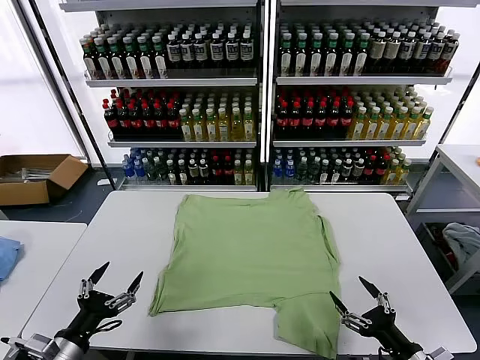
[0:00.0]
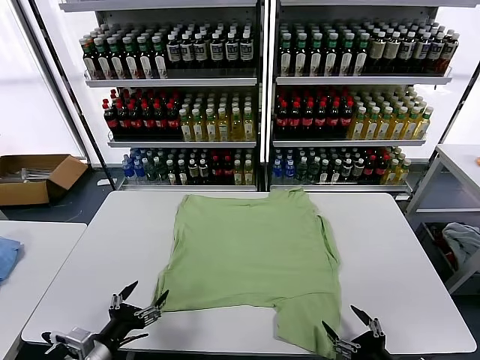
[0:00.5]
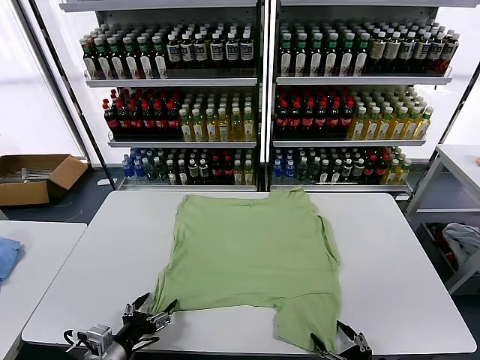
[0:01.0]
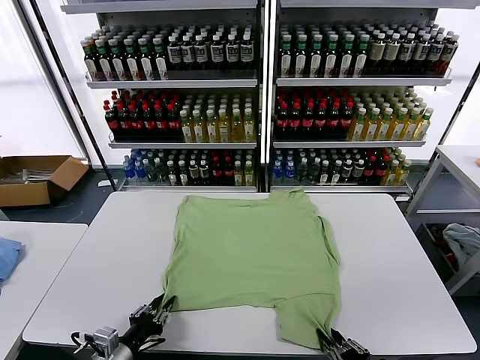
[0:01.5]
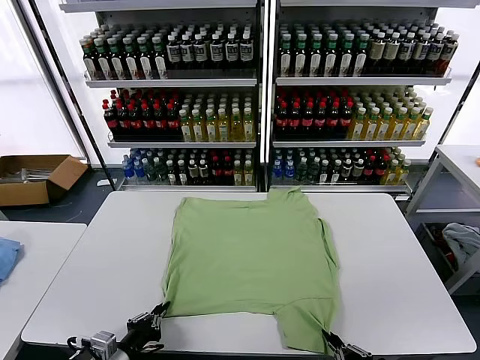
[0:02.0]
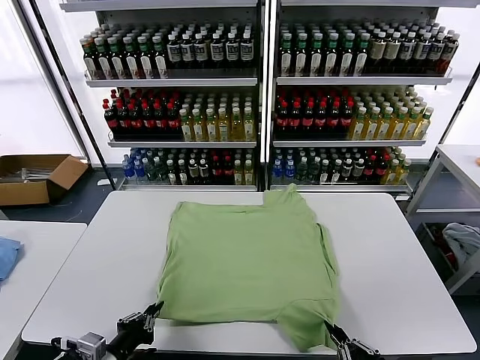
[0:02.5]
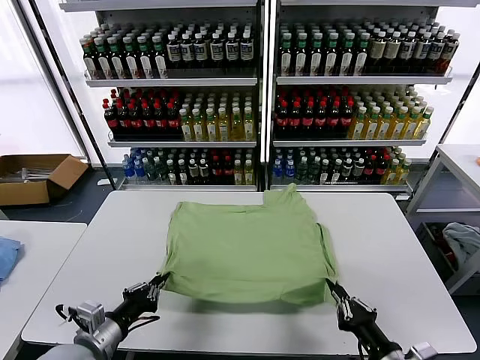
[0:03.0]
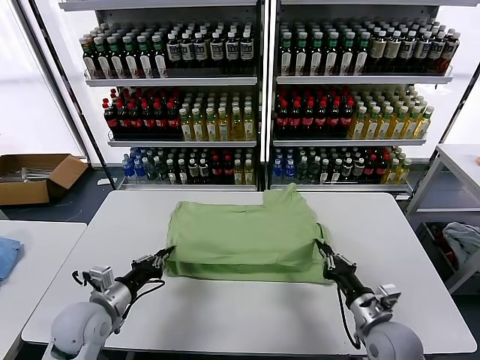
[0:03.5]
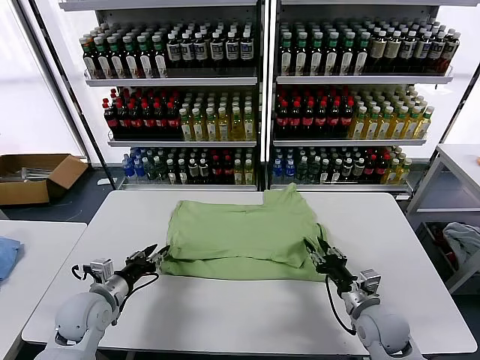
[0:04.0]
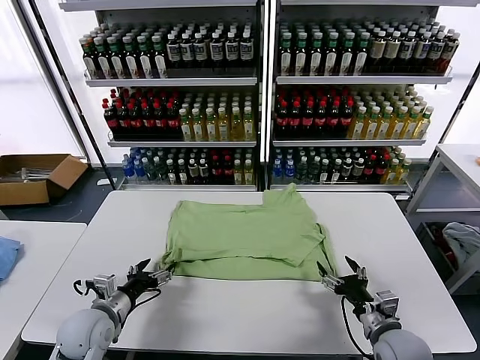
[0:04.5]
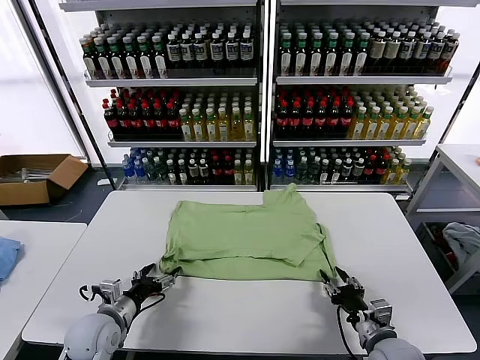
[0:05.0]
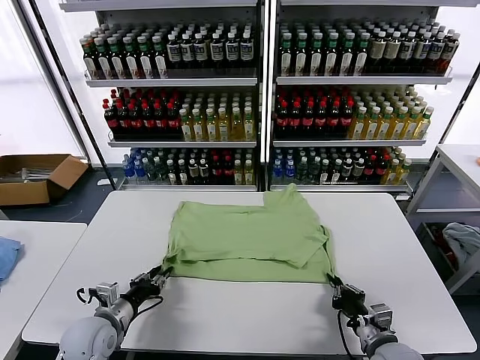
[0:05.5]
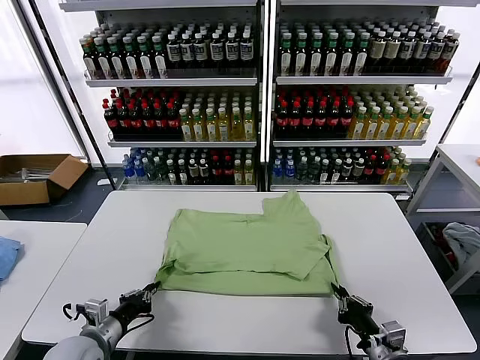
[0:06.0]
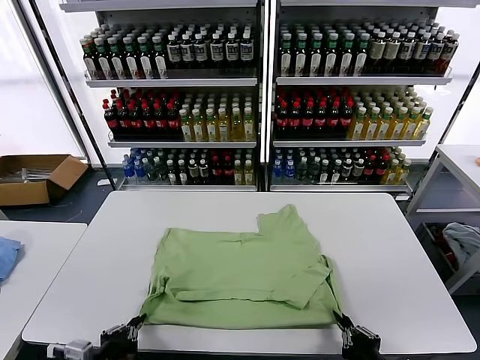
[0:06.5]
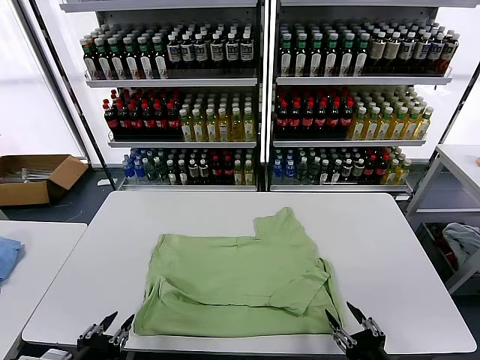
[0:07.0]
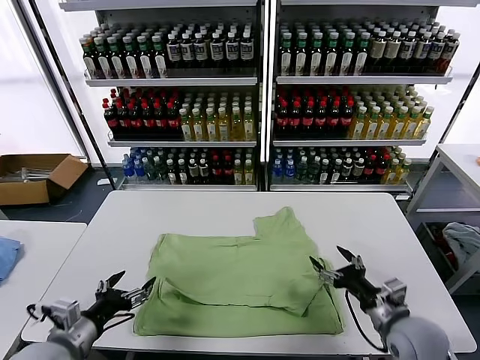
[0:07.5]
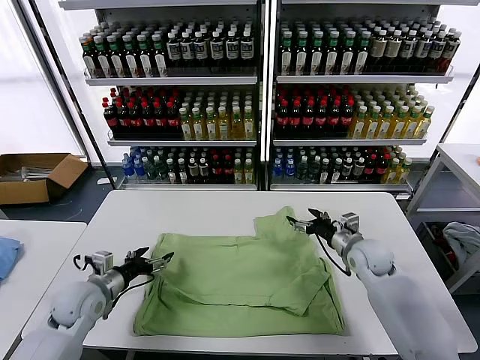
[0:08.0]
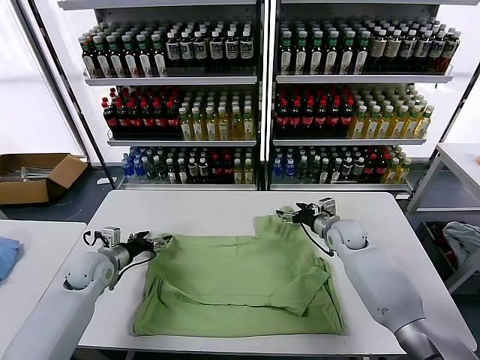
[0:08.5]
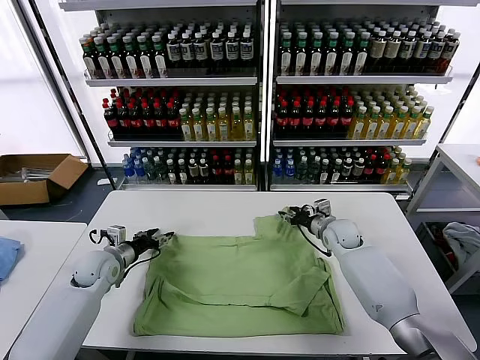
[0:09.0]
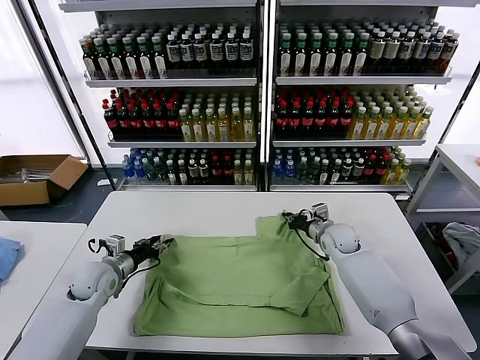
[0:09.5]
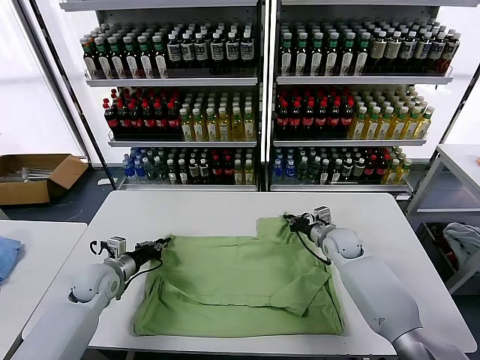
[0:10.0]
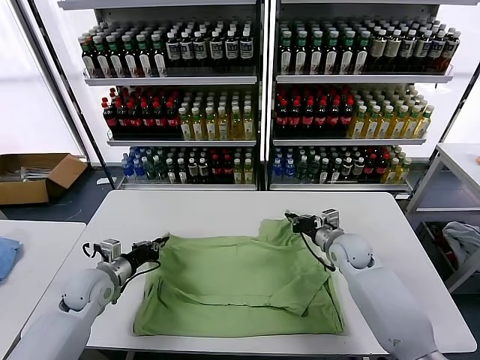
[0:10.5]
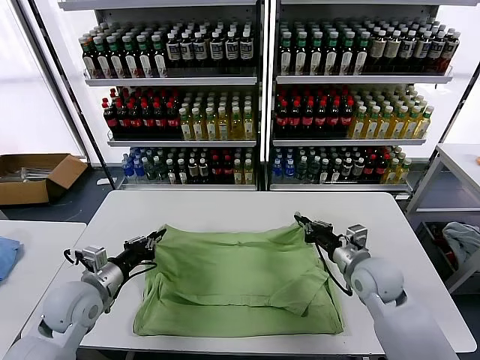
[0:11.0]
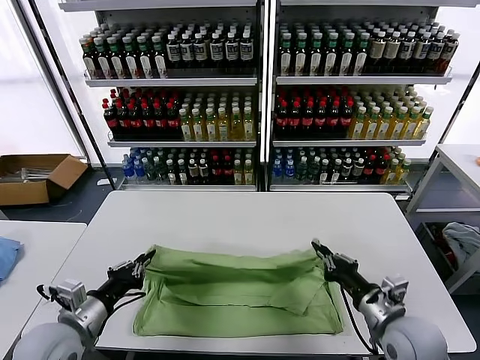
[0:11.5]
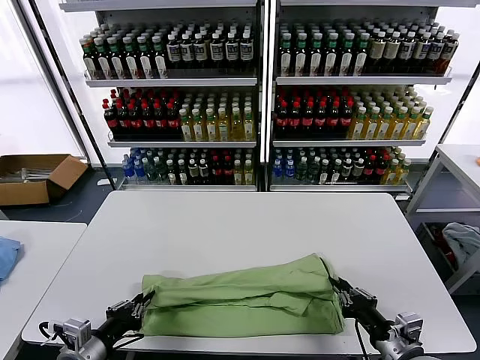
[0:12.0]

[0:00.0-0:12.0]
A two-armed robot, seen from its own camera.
Task of the whole recording: fold and organize the clothes.
Step, 0:00.0 to 0:01.5: use both grippers simultaneously to clamp the lower edge of the clothing fabric.
Step, 0:02.0 to 0:04.0: use both grippers to drag the lower edge of the fabric forward and fold it over the upper edge.
Step, 0:04.5 to 0:07.0: Drag the clothes downward with both gripper.
Step, 0:07.5 to 0:10.0: use both grippers simultaneously to clamp the upper edge of the clothing fabric.
0:02.0 to 0:04.0: Both grippers move forward, roughly 20 cm. The right gripper opens up, while the left gripper opens up.
0:04.0 to 0:06.0: Both grippers travel together backward, approximately 10 cm. The right gripper closes its fingers, while the left gripper closes its fingers.
0:06.0 to 0:08.0: The left gripper shifts about 15 cm forward, and opens. Meanwhile the right gripper moves forward, approximately 30 cm, and opens its fingers.
0:08.0 to 0:10.0: The left gripper moves approximately 5 cm, and closes its fingers, while the right gripper moves about 5 cm, and closes up.
0:10.0 to 0:12.0: The grippers both shift backward by some 25 cm.

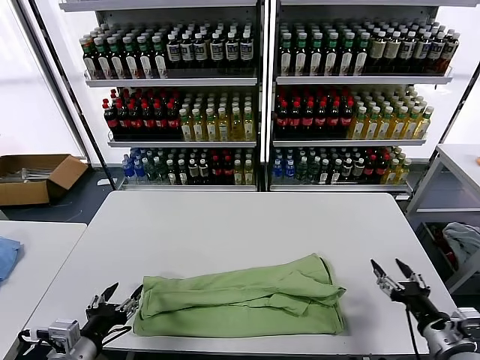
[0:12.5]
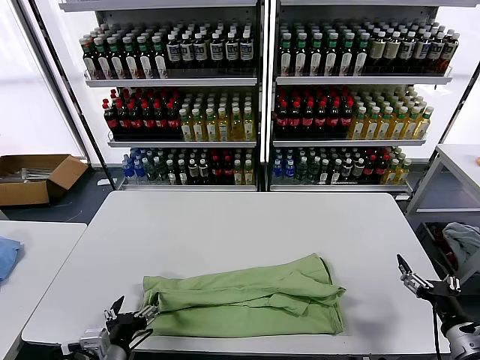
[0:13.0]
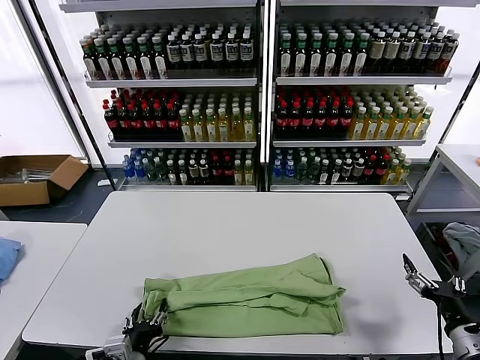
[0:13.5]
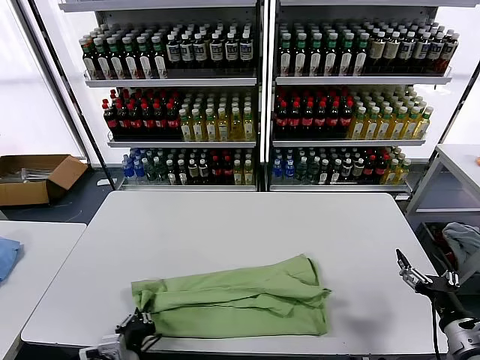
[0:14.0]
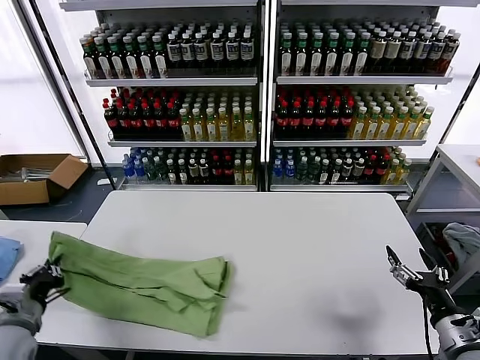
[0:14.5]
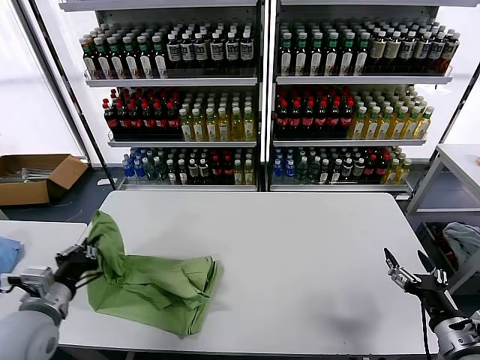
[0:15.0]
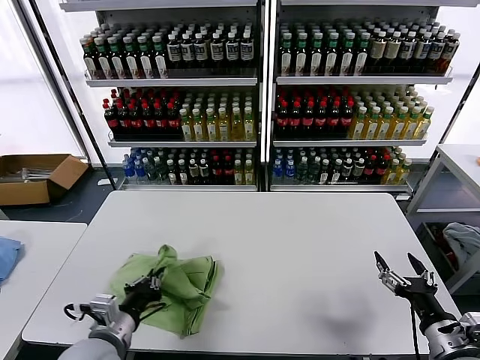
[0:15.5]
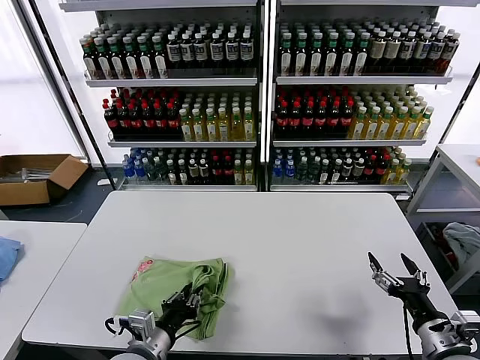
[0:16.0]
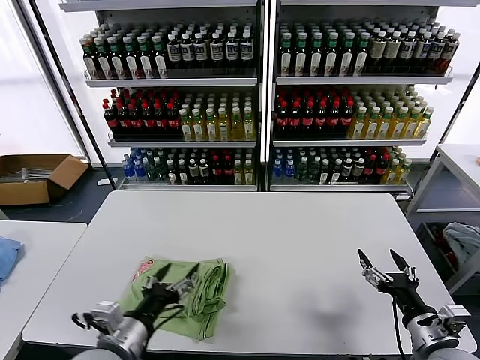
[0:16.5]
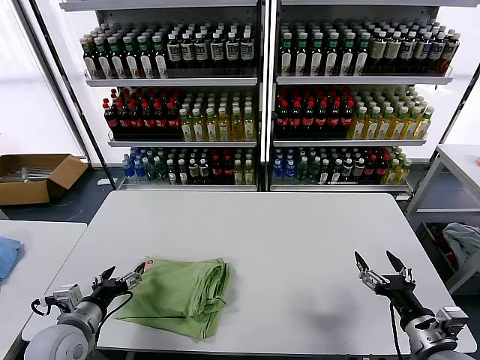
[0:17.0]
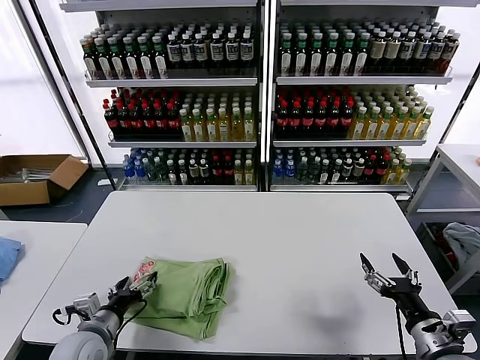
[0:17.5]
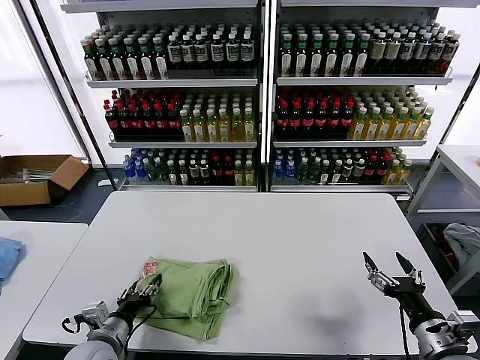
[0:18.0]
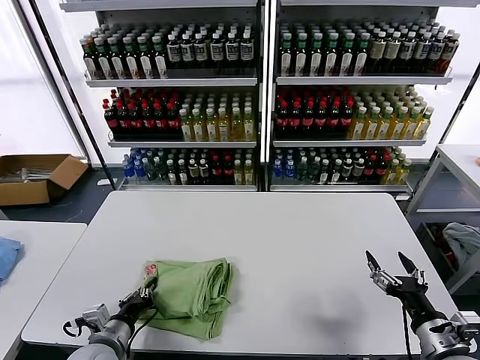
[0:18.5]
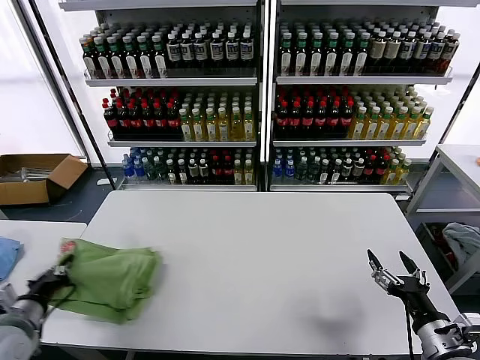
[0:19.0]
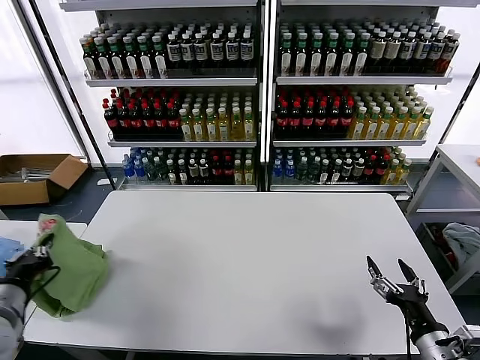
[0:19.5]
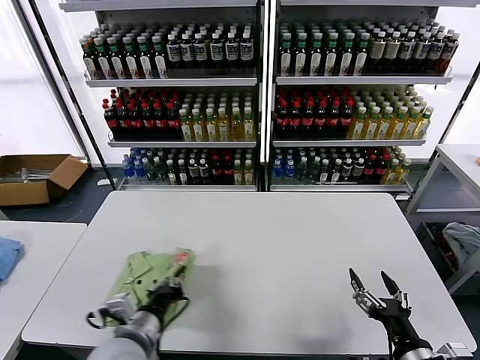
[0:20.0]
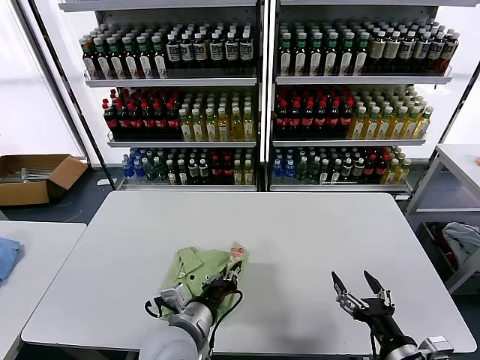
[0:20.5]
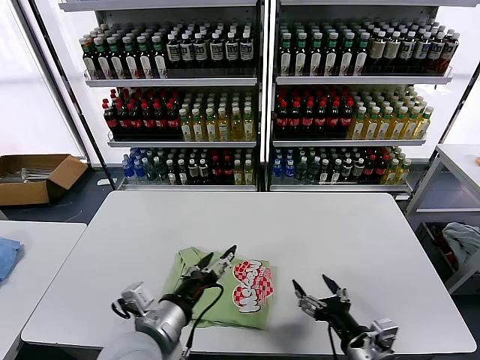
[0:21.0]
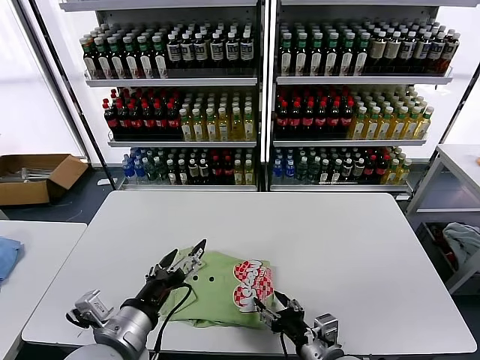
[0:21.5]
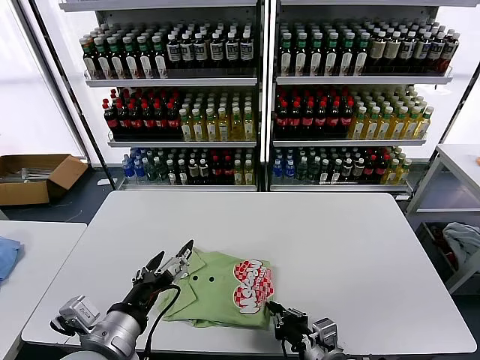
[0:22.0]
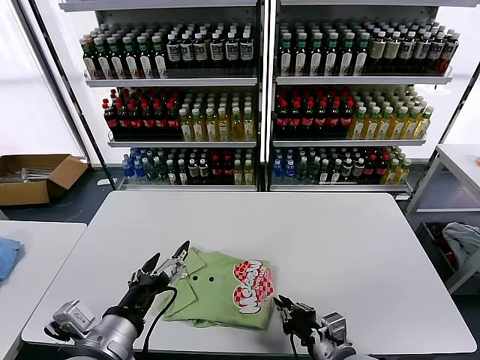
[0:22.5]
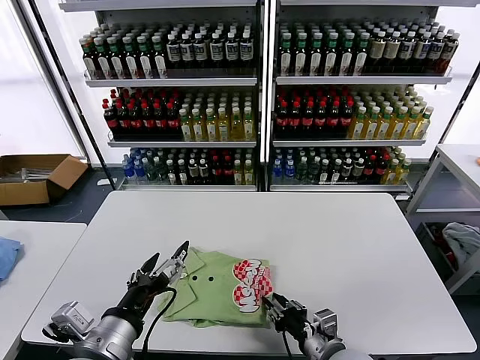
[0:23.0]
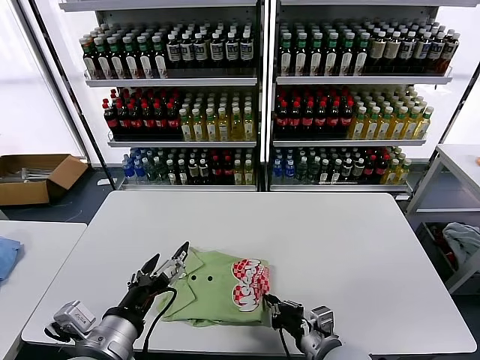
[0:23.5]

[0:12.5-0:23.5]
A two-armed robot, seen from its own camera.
Task of the whole recording: fold and organize the clothes.
Step, 0:12.5 to 0:13.5: use the left gripper to clamp the left edge of the fabric.
Step, 0:14.0 to 0:16.0: use the left gripper to drag the left edge of the fabric to the left and folds it over the right edge.
Step, 0:16.5 to 0:20.5: Flip the folded clothes over with left gripper.
0:12.5 to 0:14.5: The left gripper goes roughly 15 cm to the left and forward, and closes its fingers.
0:14.5 to 0:16.0: The left gripper goes roughly 20 cm to the right.
0:16.0 to 0:18.0: The left gripper is displaced to the left by approximately 10 cm, and opens up.
0:18.0 to 0:20.0: The left gripper moves to the right and upward, roughly 10 cm, and closes. Meanwhile the right gripper shifts by approximately 5 cm.
0:20.0 to 0:21.5: The right gripper moves to the left and forward, some 15 cm, while the left gripper moves upward, about 10 cm, moves roughly 10 cm to the right and comes back, and opens up.
0:21.5 to 0:23.5: The right gripper closes up.

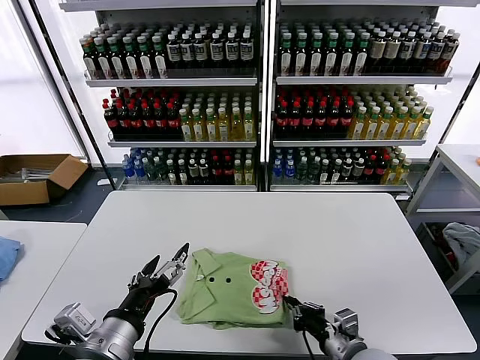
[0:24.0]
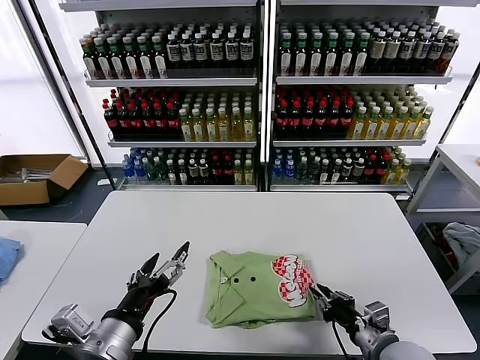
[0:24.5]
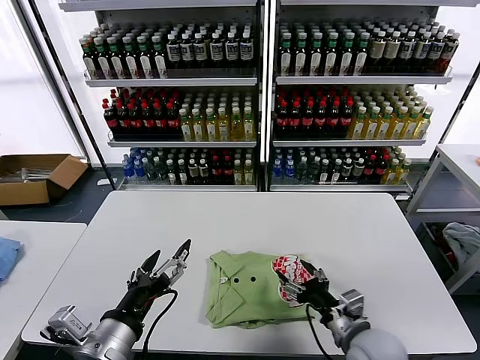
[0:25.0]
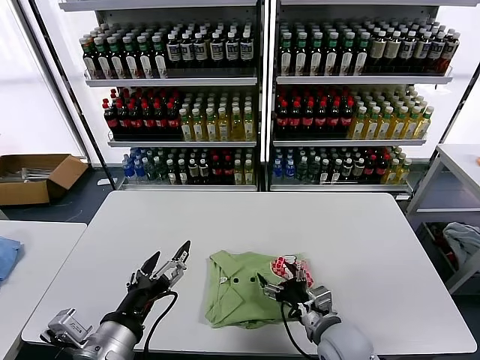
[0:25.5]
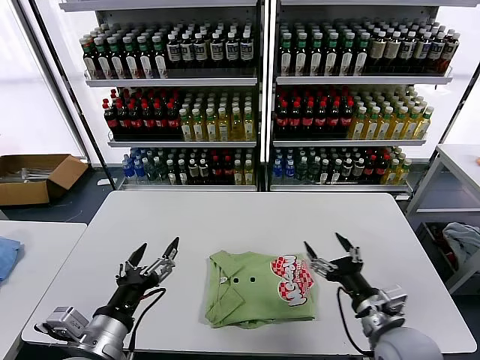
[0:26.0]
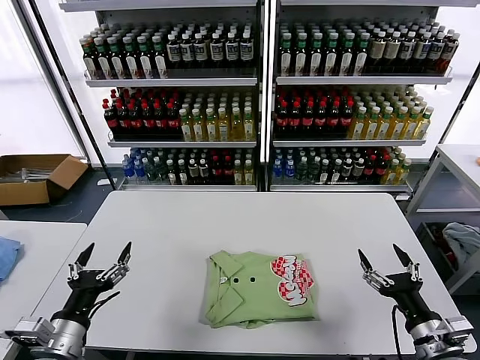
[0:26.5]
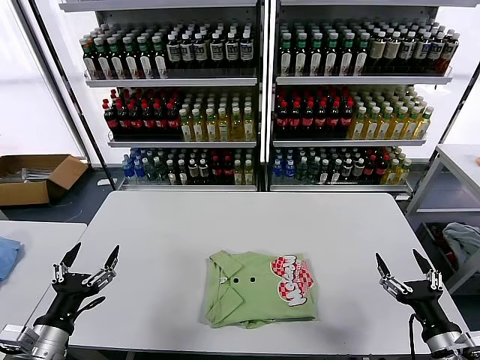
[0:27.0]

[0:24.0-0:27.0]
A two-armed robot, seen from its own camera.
Task of the whole recording: fold and organize the clothes.
0:24.0 to 0:25.5: The right gripper changes place by roughly 5 cm, and opens up.
0:25.5 to 0:27.0: The left gripper travels to the left and downward by roughly 15 cm, while the right gripper travels to the right and backward by some 20 cm.
